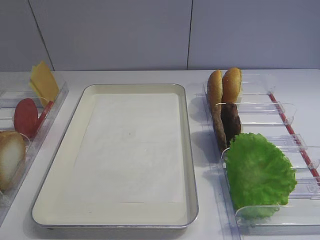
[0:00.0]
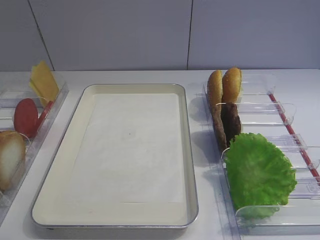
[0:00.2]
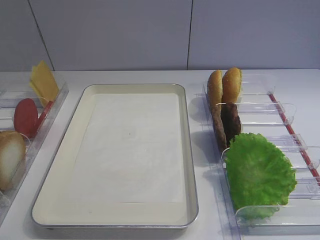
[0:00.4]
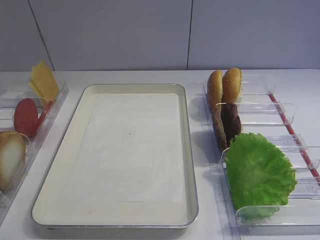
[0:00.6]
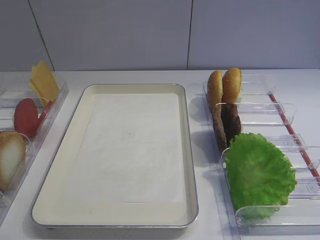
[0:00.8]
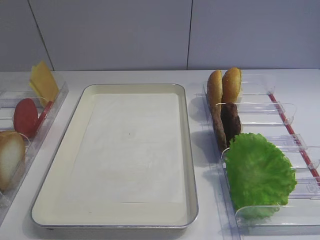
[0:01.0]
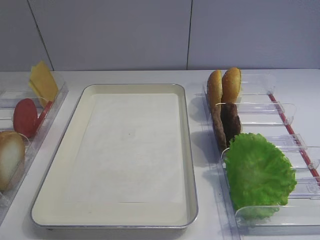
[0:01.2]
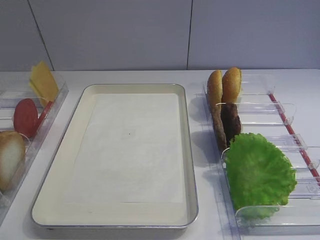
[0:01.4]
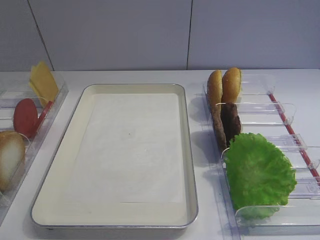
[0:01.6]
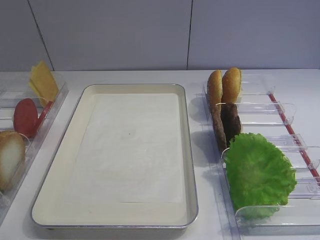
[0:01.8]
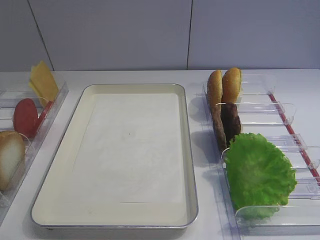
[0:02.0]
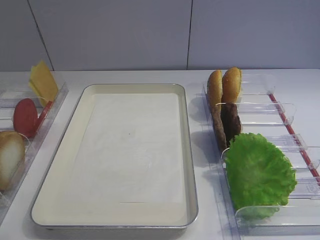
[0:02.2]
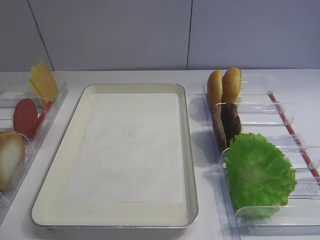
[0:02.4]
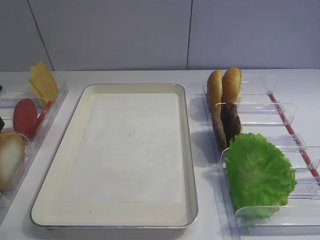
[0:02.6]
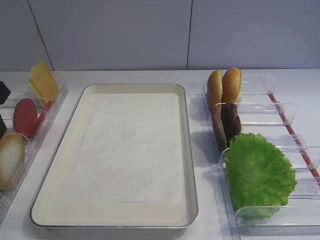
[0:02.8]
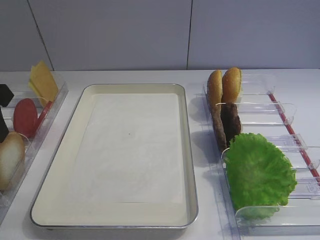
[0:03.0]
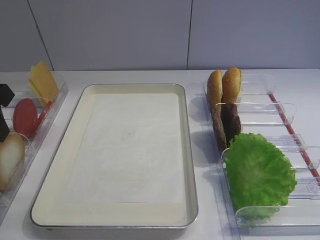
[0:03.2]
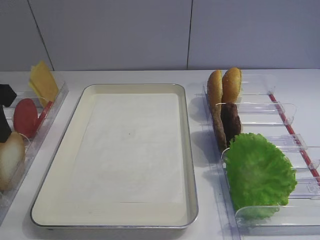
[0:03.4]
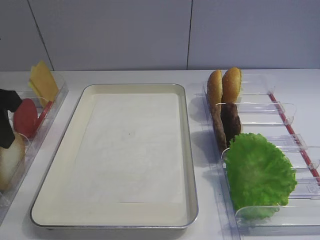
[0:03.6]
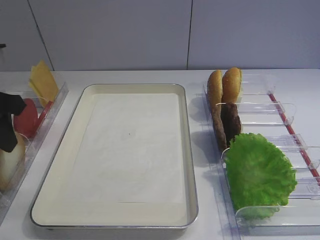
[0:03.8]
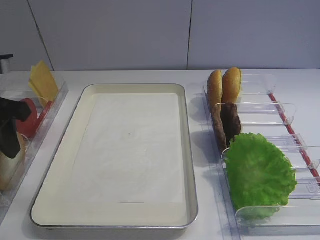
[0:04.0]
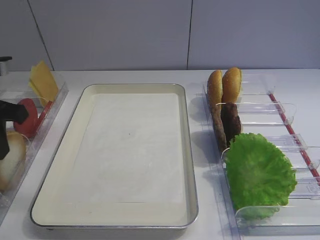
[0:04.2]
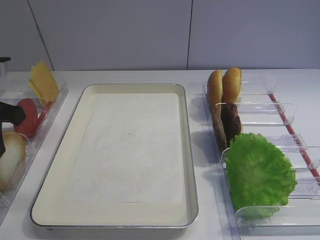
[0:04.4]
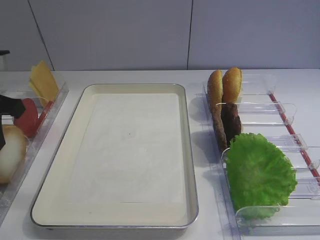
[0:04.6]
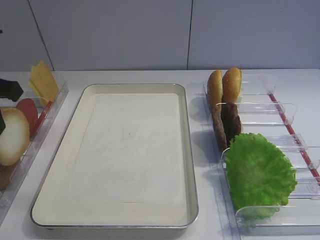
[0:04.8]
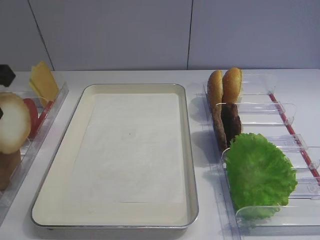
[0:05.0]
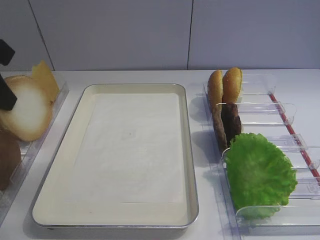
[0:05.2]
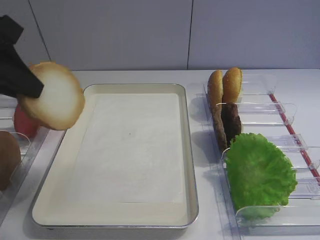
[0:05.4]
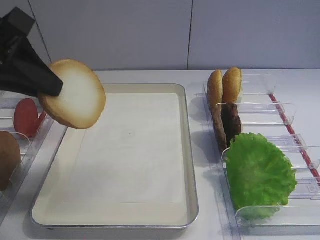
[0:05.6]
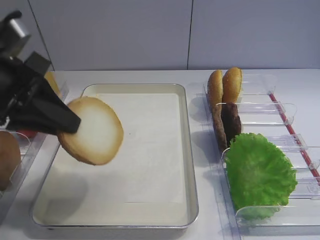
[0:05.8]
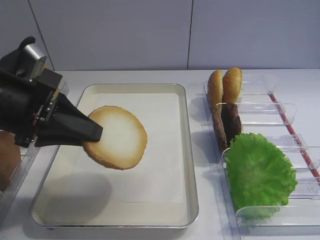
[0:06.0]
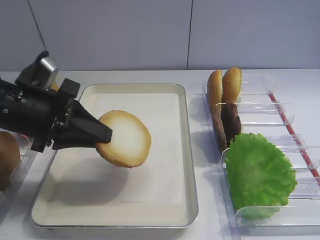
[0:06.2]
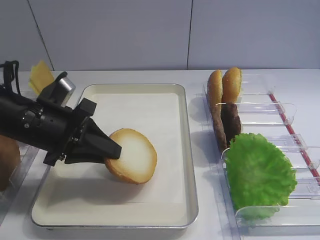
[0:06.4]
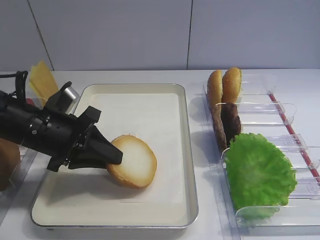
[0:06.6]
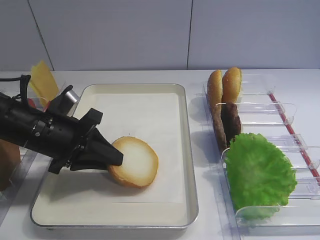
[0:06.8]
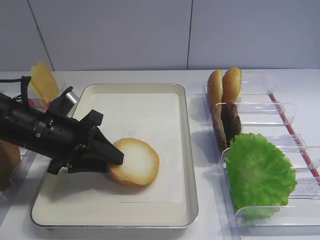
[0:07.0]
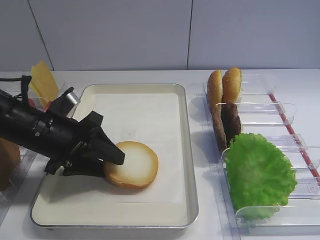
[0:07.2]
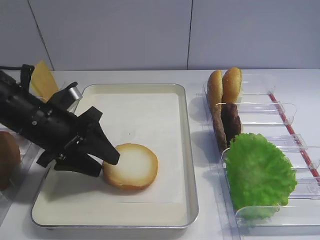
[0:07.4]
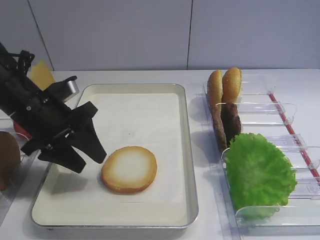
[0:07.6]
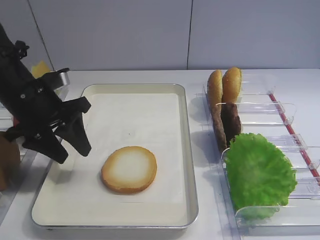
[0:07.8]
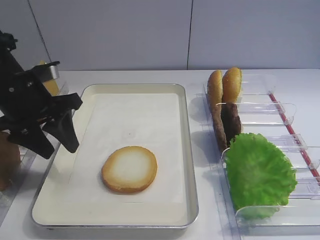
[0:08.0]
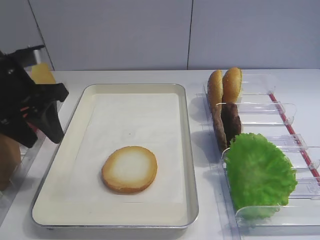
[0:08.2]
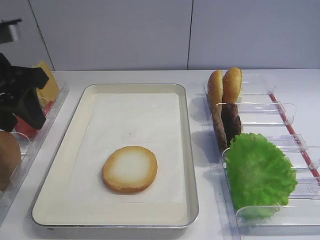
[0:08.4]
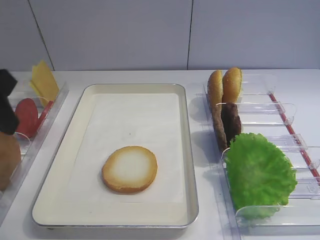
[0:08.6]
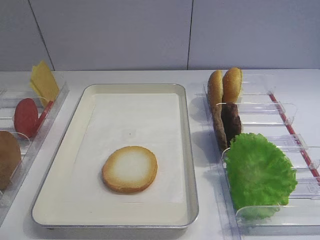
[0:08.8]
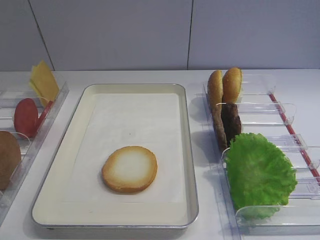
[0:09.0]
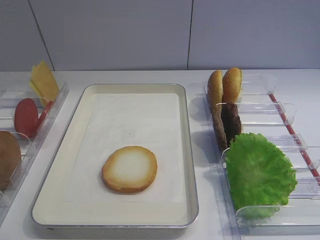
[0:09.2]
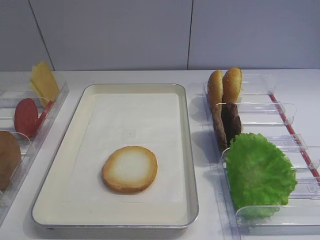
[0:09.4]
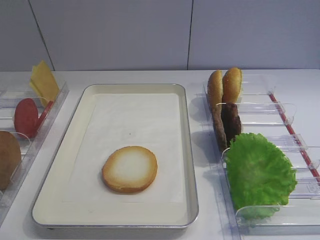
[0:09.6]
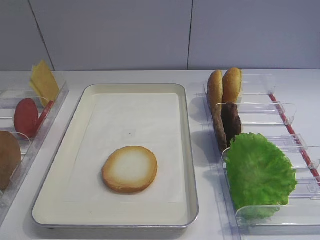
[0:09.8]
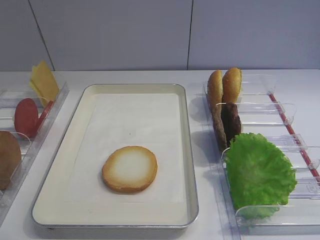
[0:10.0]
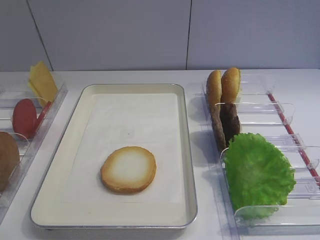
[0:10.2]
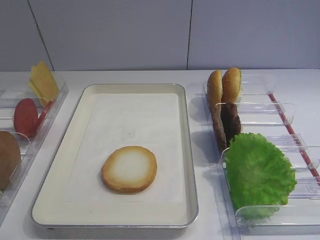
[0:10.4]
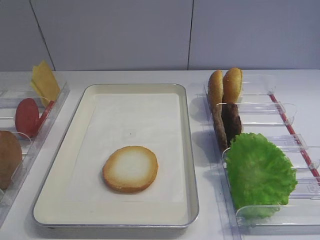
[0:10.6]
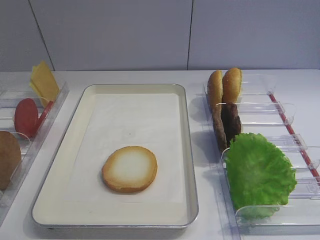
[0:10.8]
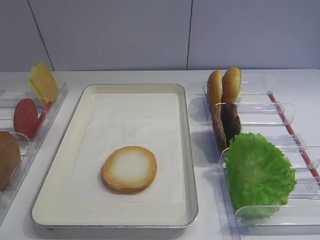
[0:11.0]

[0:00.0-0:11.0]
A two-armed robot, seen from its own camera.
Step, 0:00.0 to 0:04.8: Pick up the bread slice with the left gripper.
Step, 0:05.2 to 0:07.6: Place the bread slice on the tray with the left gripper.
0:01.6 to 0:03.2: The left gripper moves forward, roughly 25 cm.
0:03.2 to 0:04.8: The left gripper closes its fingers.
0:04.8 to 0:06.2: The left gripper goes some 10 cm to the right and downward.
0:06.2 to 0:07.8: The left gripper is displaced forward by some 5 cm, and opens up.
0:07.8 to 0:09.4: The left gripper moves backward, approximately 25 cm, and closes its fingers.

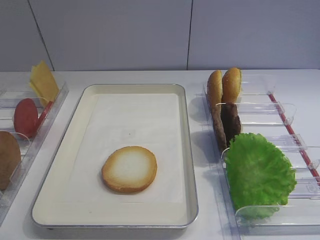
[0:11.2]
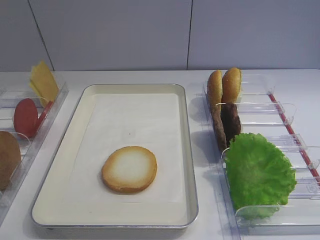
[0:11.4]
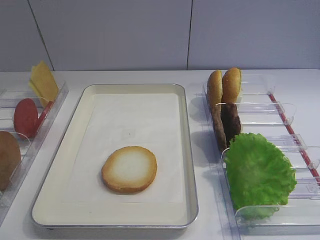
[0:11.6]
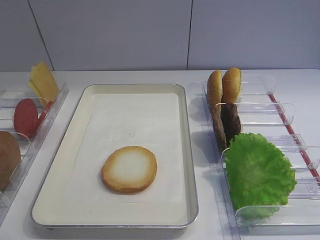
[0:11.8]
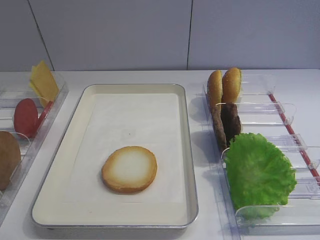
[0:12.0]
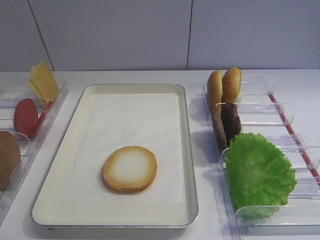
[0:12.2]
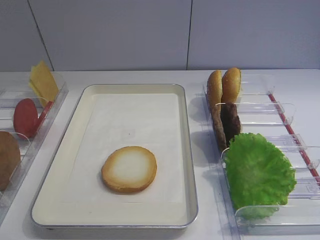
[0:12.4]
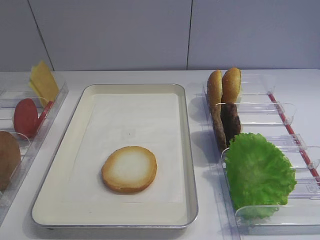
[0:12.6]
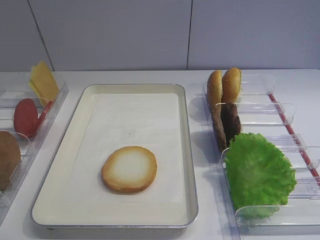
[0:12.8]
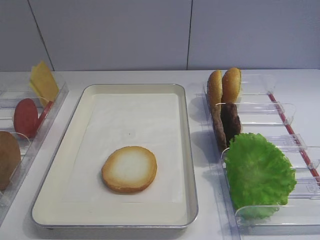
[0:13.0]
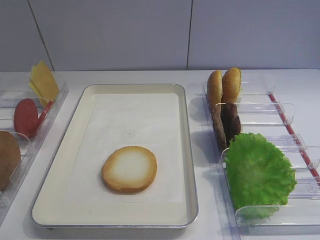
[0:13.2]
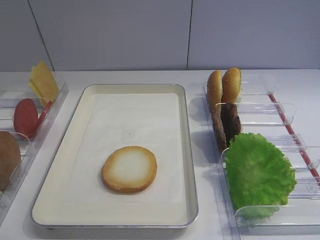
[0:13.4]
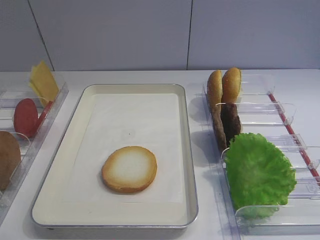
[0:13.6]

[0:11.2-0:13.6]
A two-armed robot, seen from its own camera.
0:11.2 to 0:13.6: Both grippers stay put.

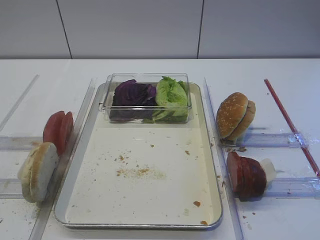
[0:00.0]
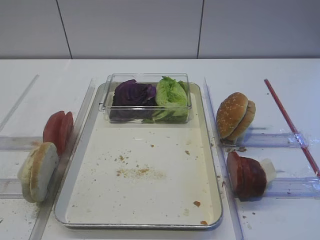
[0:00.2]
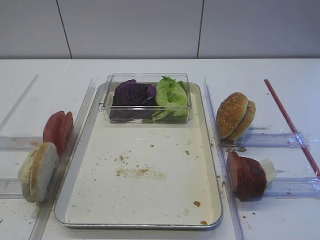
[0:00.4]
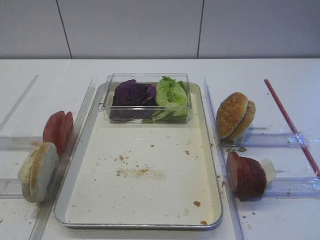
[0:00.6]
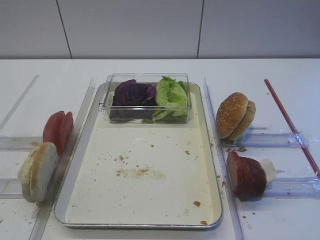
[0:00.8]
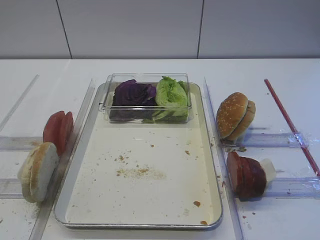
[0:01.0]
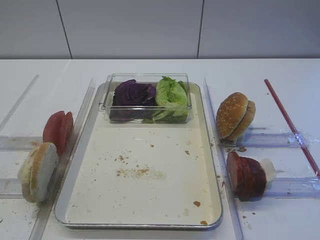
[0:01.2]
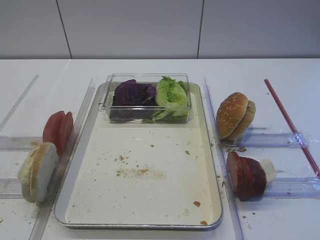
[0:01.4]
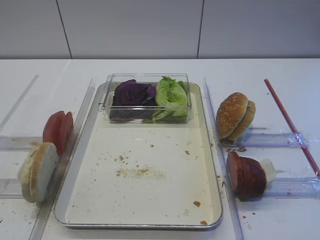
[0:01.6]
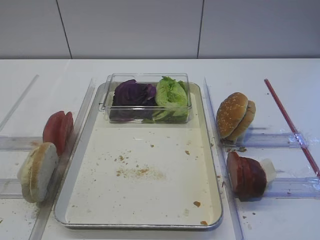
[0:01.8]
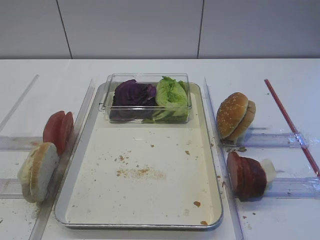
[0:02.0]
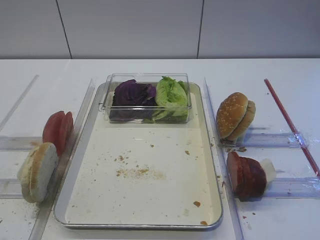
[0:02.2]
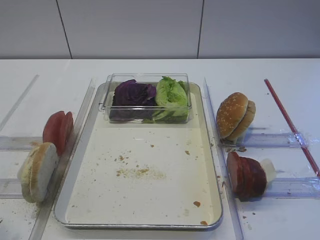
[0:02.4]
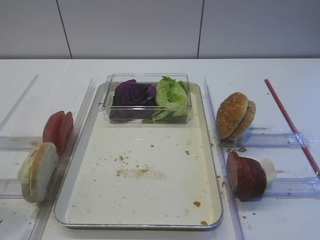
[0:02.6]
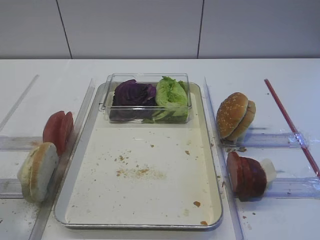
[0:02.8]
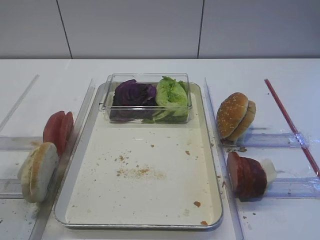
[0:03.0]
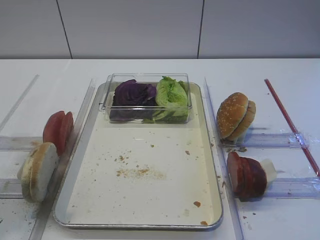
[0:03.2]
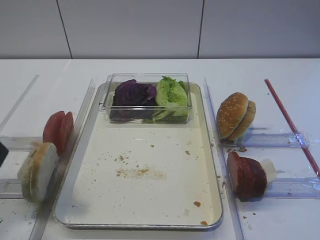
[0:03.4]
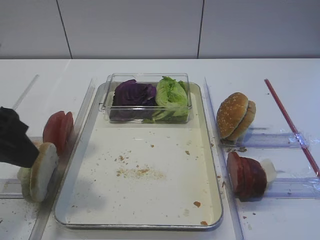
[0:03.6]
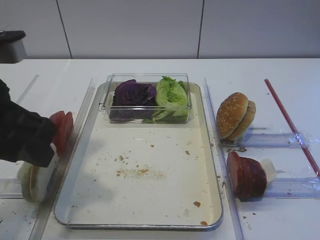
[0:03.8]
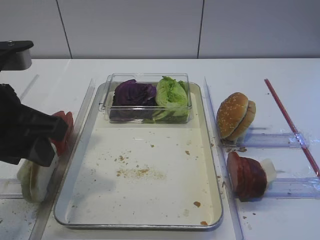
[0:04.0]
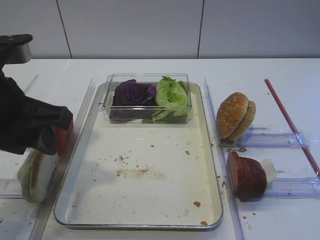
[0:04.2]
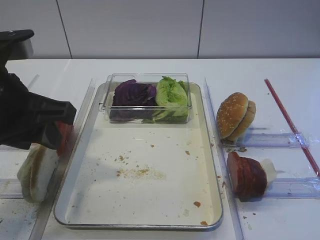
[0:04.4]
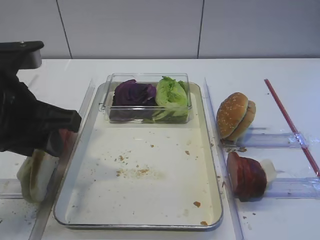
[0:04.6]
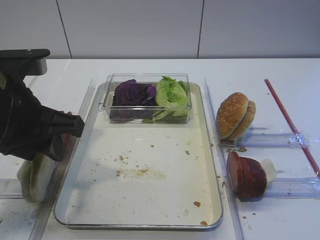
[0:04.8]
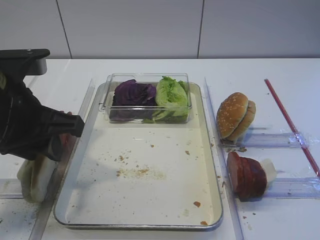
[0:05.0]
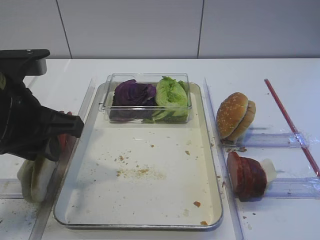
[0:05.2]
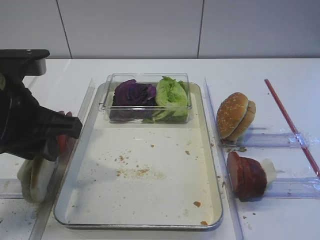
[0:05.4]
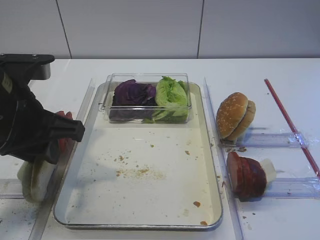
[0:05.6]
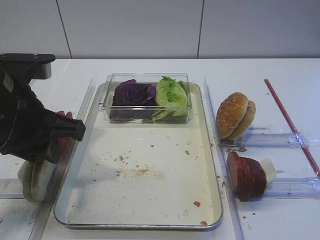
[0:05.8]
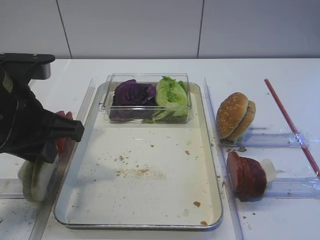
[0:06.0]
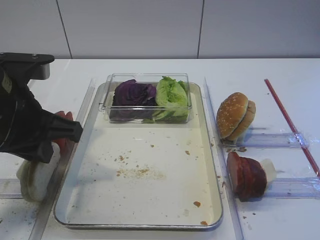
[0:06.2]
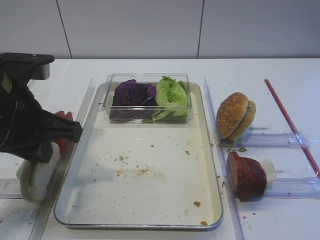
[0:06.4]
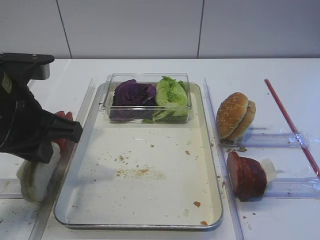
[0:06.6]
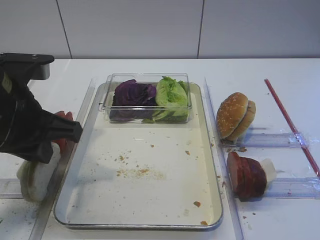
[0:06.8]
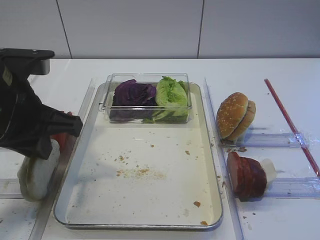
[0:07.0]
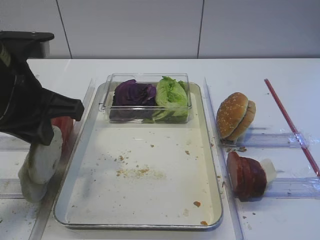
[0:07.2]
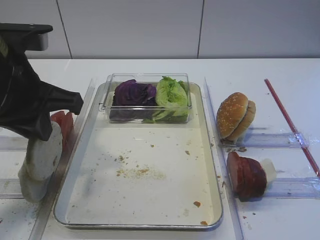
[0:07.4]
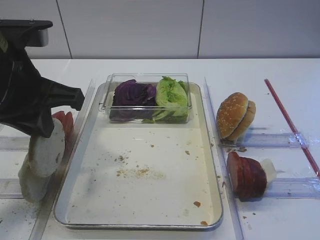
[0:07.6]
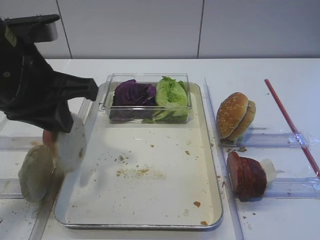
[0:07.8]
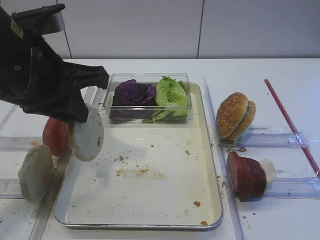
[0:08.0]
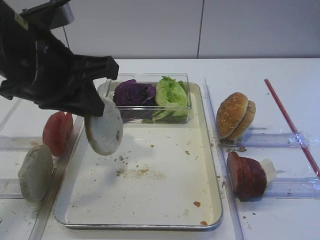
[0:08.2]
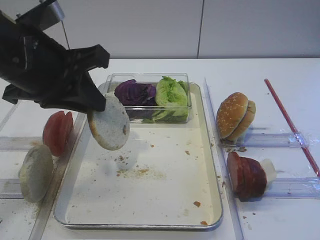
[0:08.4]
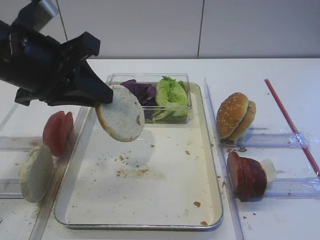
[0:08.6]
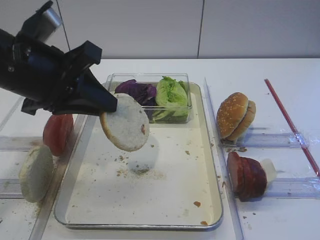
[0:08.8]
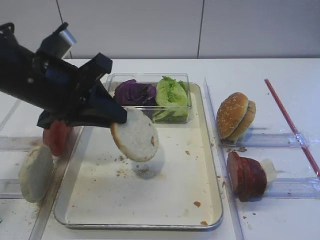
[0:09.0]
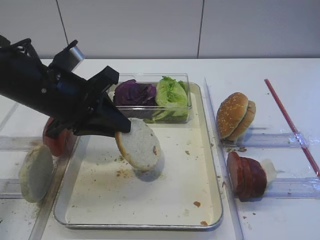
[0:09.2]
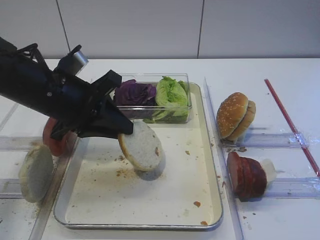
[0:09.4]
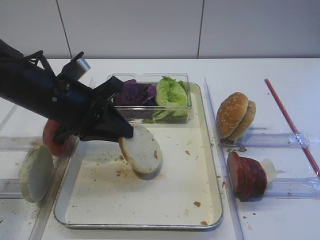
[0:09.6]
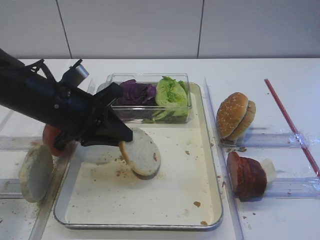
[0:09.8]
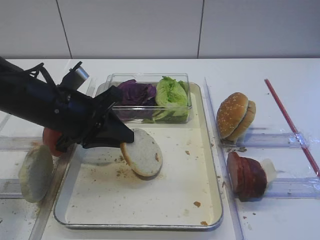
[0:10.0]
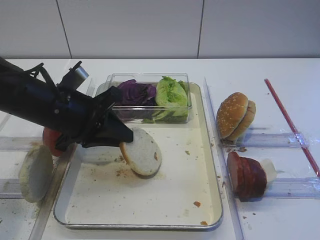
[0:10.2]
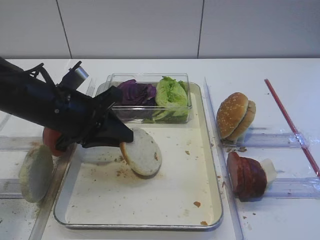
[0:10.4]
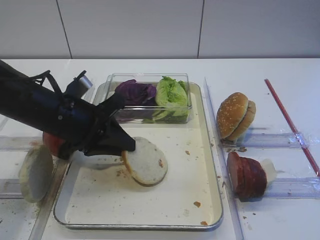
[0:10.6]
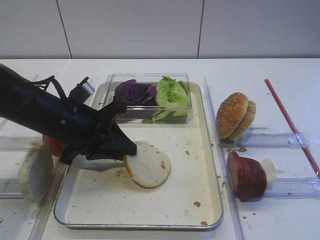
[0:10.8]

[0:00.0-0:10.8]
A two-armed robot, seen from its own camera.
Step, 0:00.0 to 0:07.4: Pick up the bread slice with the left gripper.
0:01.6 to 0:03.0: The left gripper moves forward and upward, approximately 10 cm.
0:03.0 to 0:04.6: The left gripper shifts roughly 15 cm forward, to the right and downward.
0:04.6 to 0:06.2: The left gripper closes up.
0:06.2 to 0:07.8: The grippers make only small movements.
0:07.8 to 0:09.2: The left gripper is displaced downward by about 5 cm.
0:09.2 to 0:10.8: The left gripper travels downward by about 5 cm.
